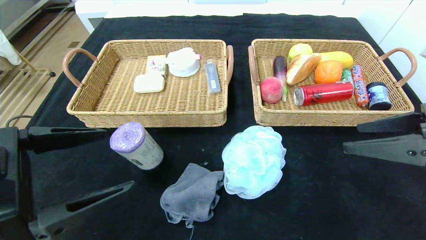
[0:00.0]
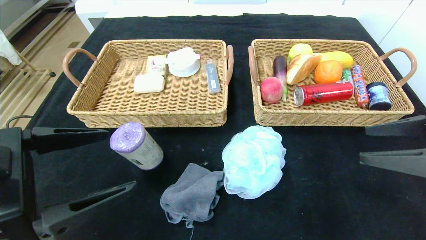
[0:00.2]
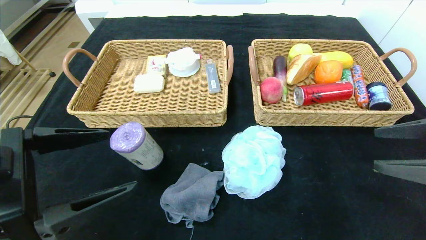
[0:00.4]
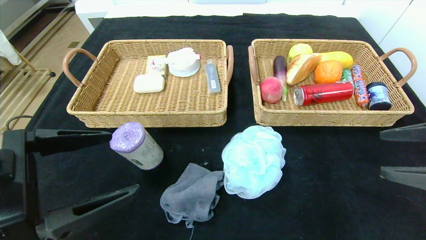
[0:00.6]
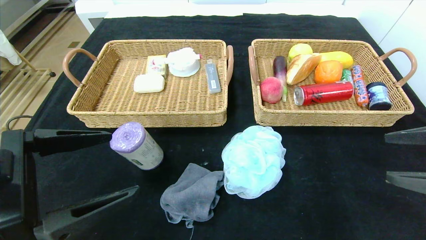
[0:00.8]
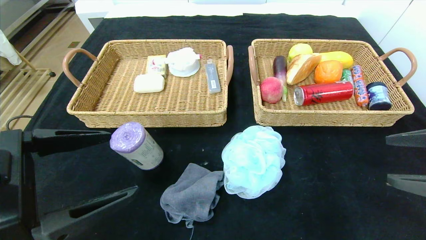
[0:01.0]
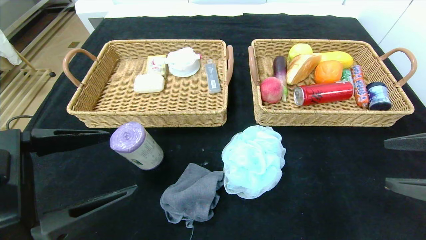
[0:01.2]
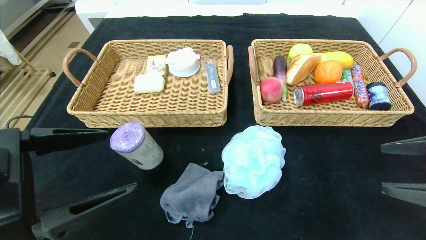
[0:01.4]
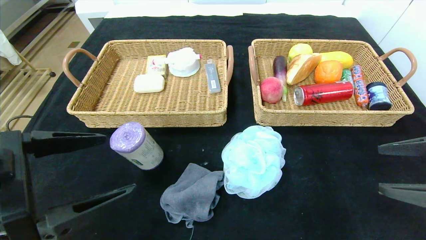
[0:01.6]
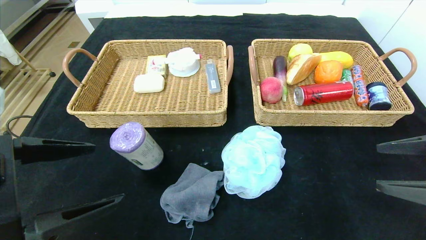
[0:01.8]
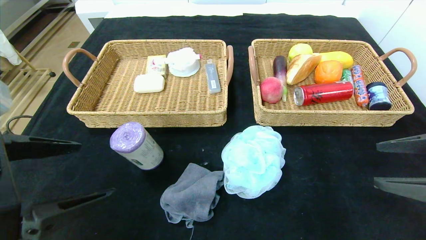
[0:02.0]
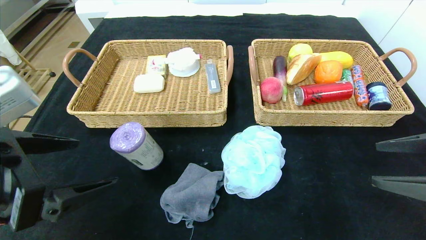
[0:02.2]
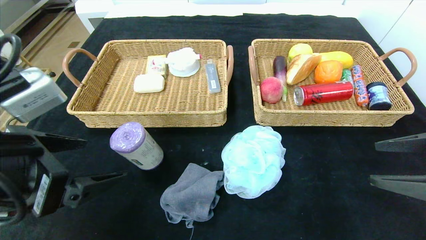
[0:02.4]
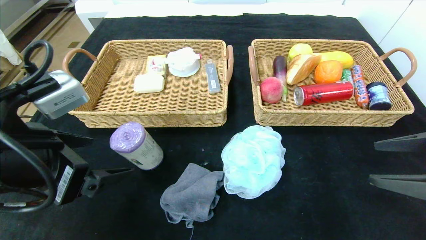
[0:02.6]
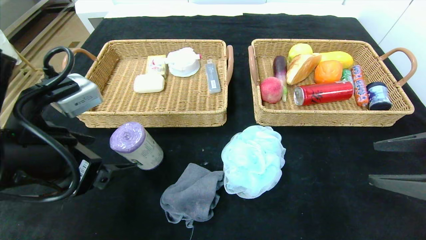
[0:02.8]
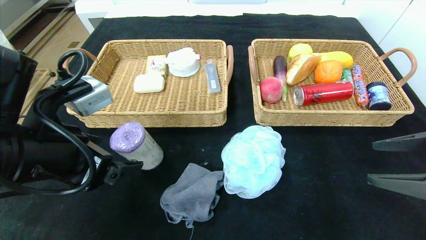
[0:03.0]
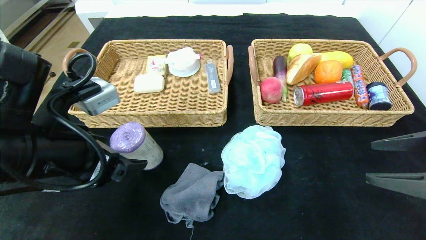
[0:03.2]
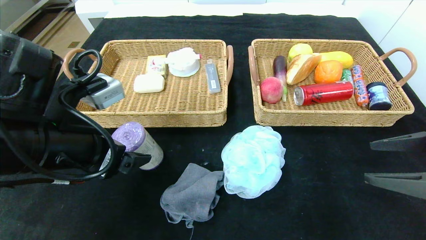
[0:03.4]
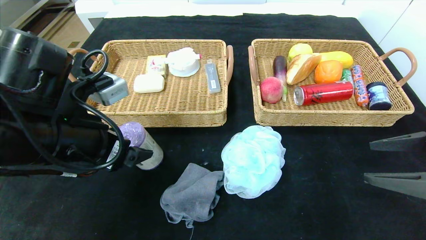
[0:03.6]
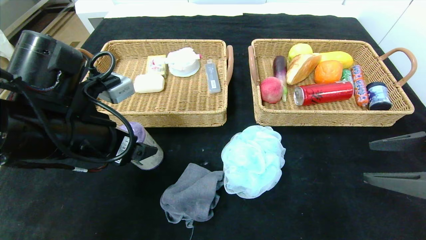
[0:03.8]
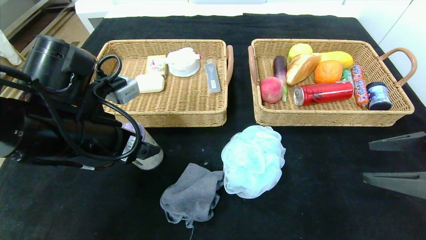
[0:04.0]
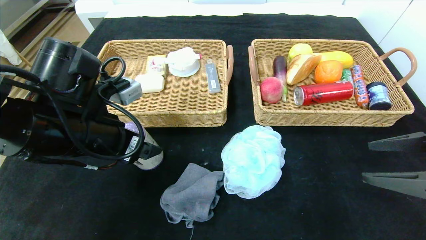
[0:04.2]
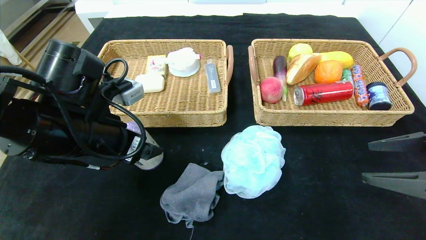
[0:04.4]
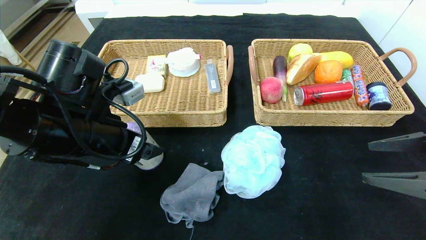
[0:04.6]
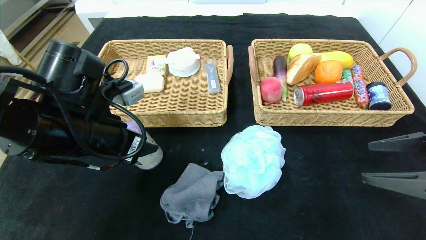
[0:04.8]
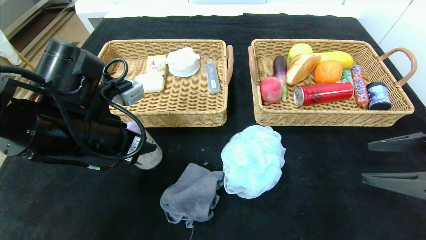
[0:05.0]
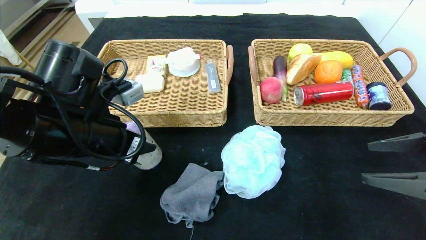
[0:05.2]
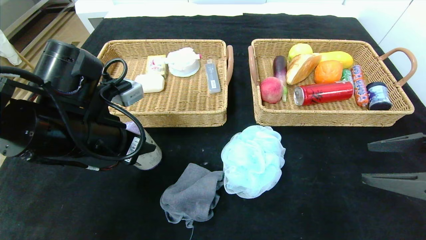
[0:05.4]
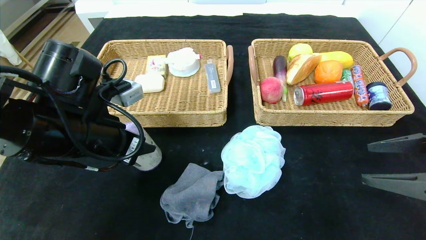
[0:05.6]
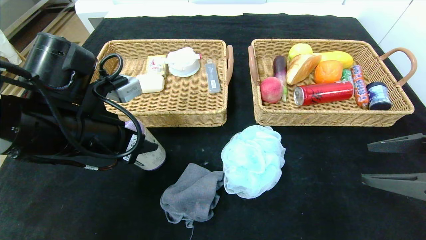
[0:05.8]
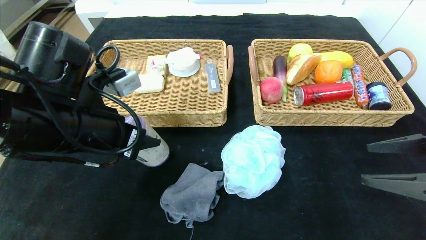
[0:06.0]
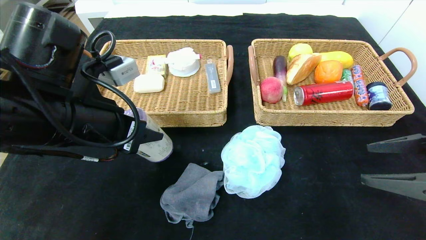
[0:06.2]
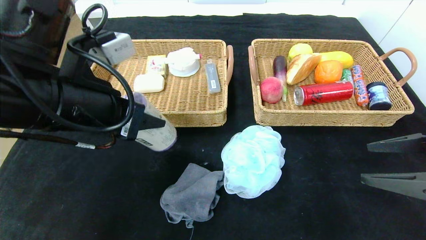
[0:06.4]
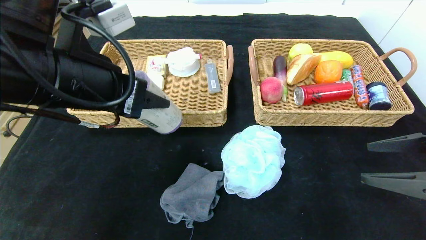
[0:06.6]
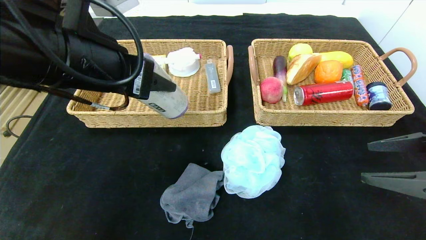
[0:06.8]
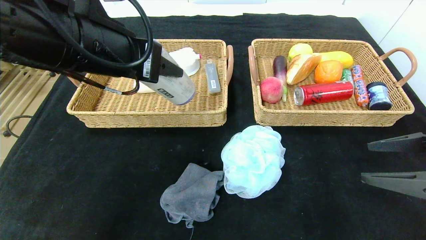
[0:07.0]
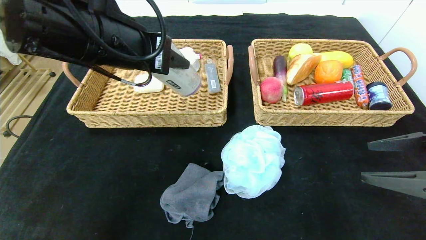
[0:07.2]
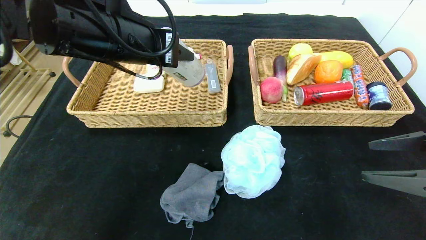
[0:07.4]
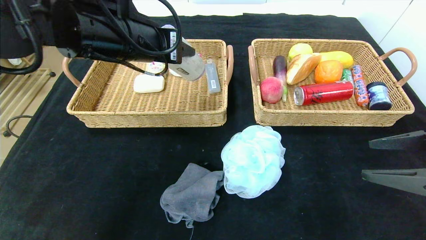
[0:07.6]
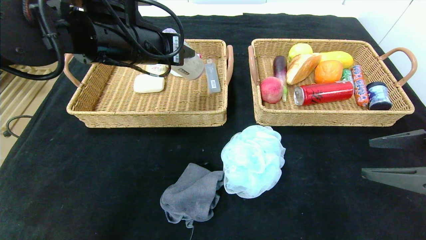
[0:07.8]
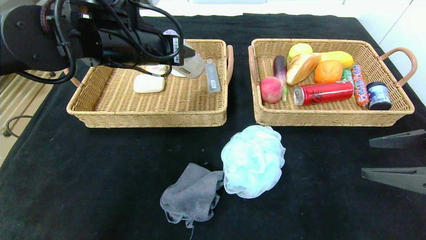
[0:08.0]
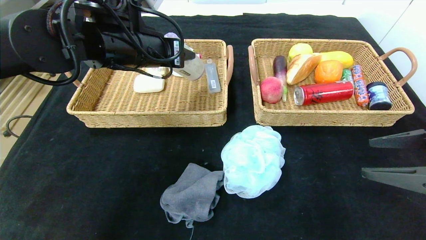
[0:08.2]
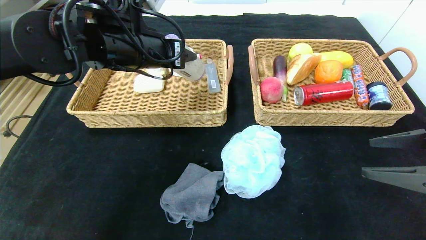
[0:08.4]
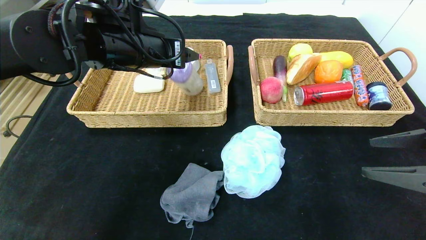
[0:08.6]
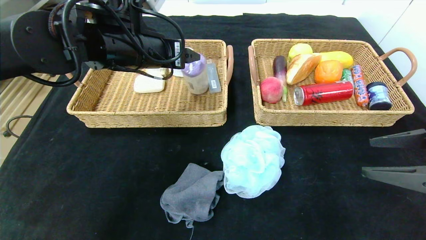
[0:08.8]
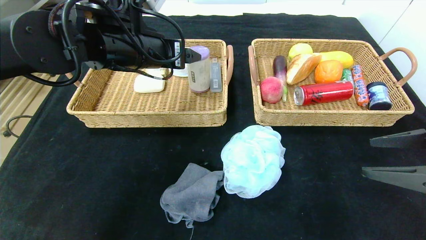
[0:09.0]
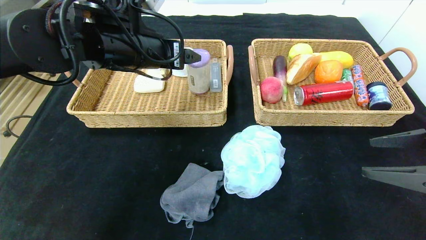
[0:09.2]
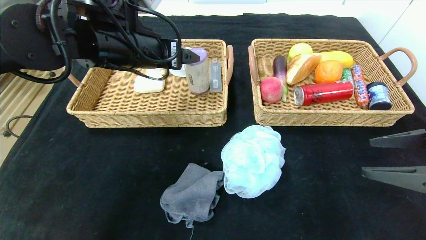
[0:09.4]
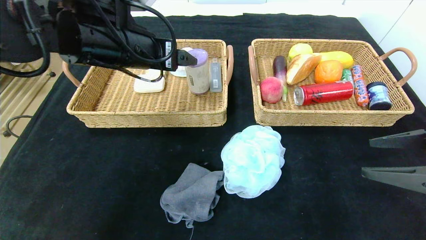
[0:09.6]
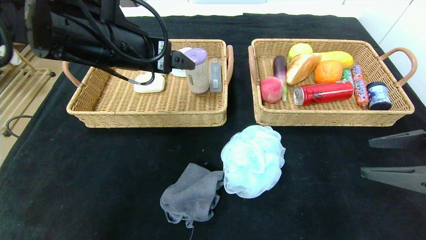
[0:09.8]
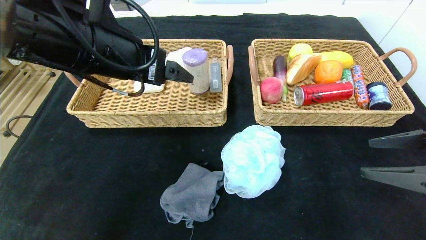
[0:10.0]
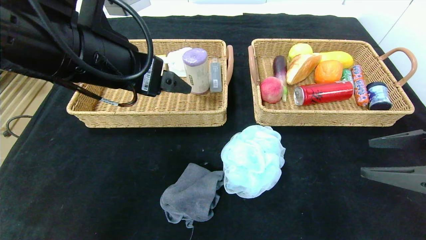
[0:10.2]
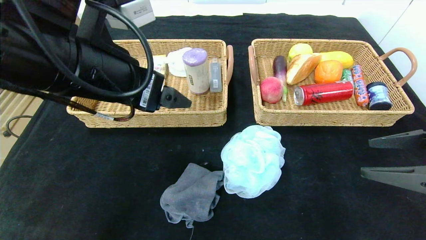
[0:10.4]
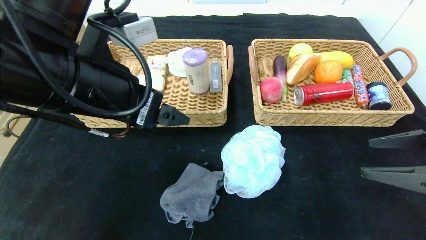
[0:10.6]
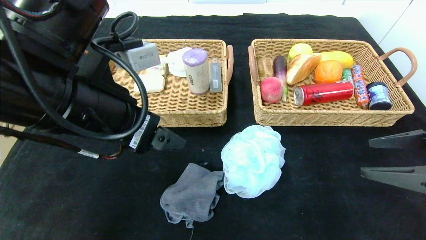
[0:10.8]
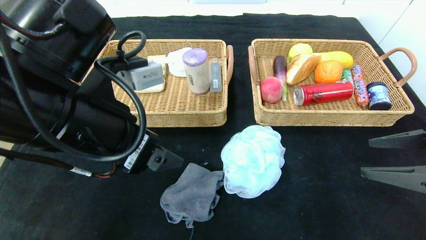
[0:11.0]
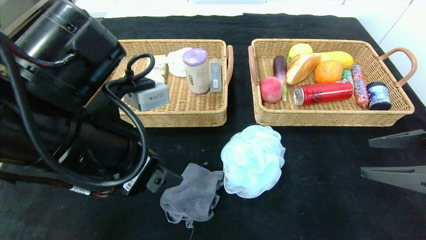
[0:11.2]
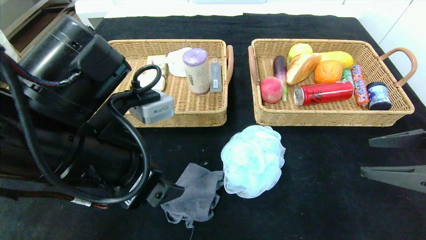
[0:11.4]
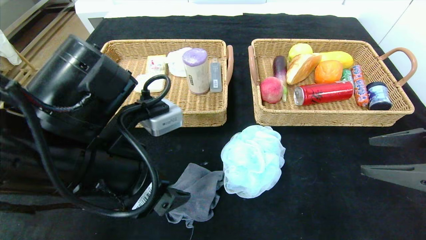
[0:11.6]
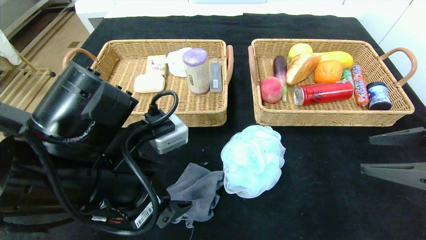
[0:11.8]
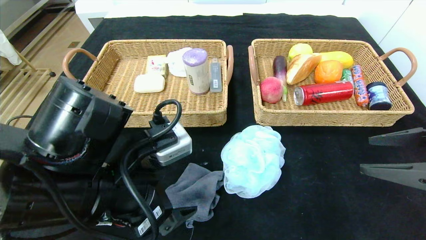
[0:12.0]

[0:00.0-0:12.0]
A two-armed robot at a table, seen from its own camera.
Step, 0:00.0 to 0:09.0: Grasp the purple garbage bag and put it in the left basket.
0:00.0 to 0:01.6: The right gripper moves roughly 5 cm.
0:01.6 to 0:03.0: The left gripper moves forward, approximately 5 cm.
0:03.0 to 0:04.4: The left gripper shifts about 5 cm forward.
0:04.4 to 0:06.0: The left gripper closes its fingers.
0:06.0 to 0:07.6: The left gripper is displaced upward and forward by about 10 cm.
0:07.6 to 0:09.0: The left gripper opens its fingers.
0:09.0 to 0:10.4: The left gripper travels backward by about 10 cm.
0:10.4 to 0:12.0: The left gripper shifts some 10 cm downward and backward.

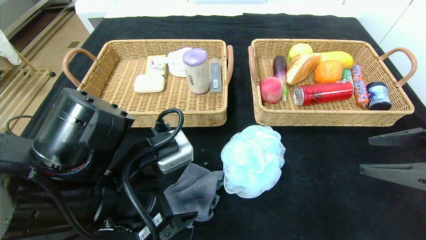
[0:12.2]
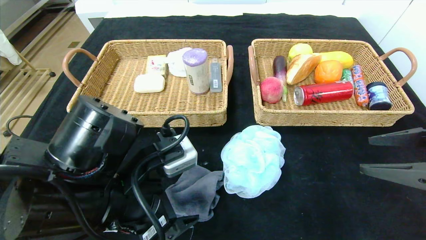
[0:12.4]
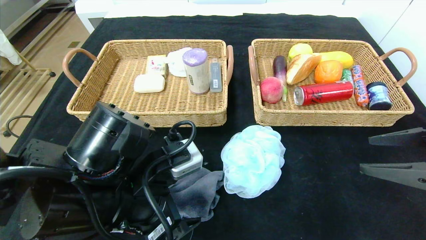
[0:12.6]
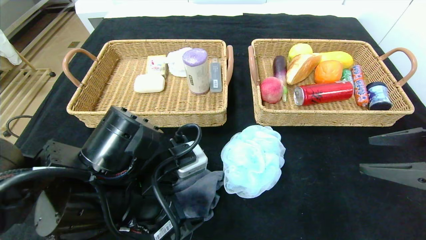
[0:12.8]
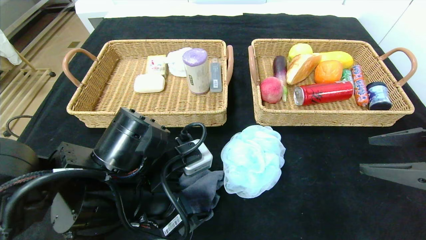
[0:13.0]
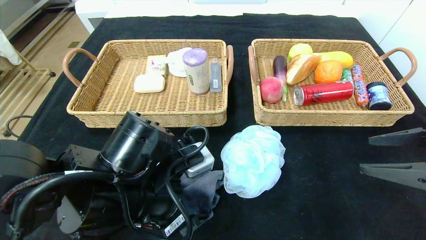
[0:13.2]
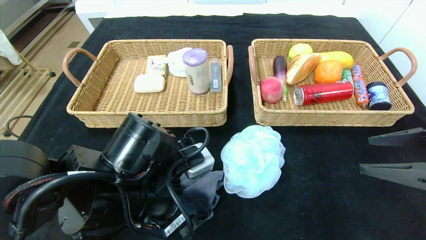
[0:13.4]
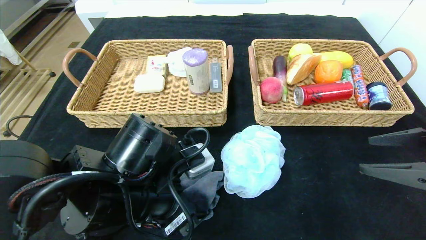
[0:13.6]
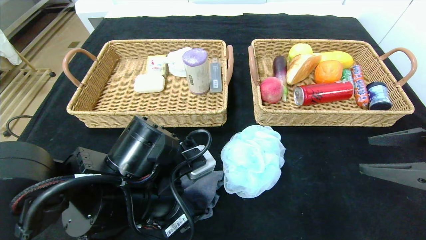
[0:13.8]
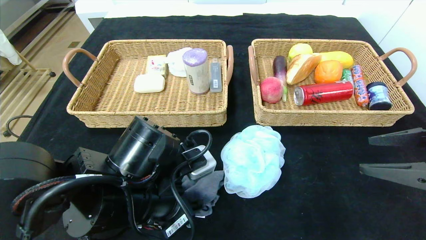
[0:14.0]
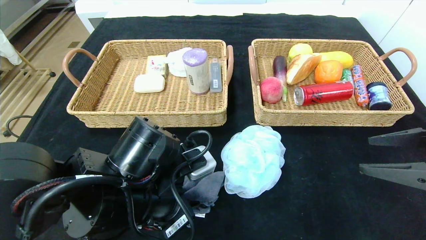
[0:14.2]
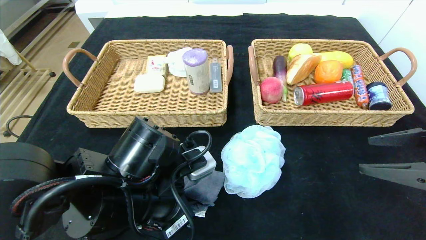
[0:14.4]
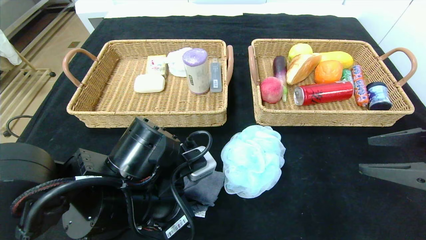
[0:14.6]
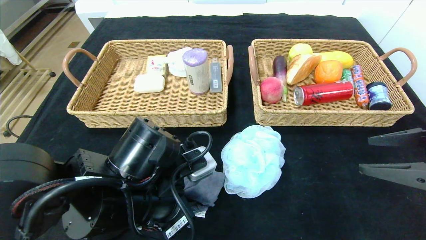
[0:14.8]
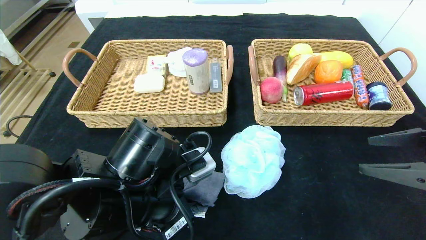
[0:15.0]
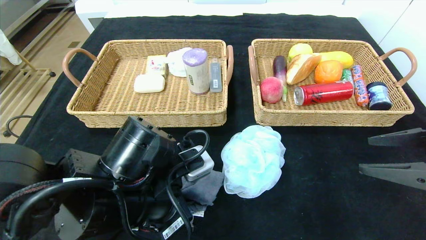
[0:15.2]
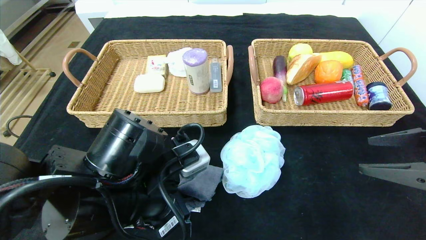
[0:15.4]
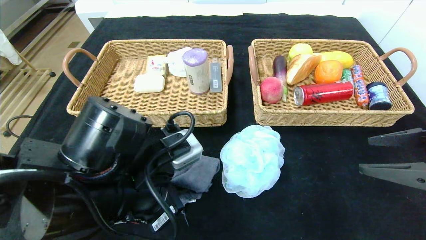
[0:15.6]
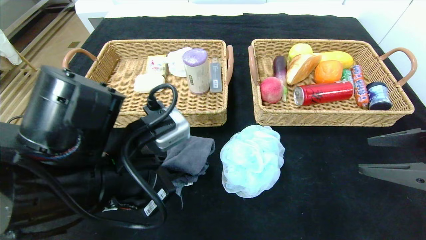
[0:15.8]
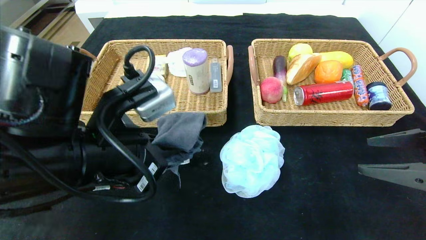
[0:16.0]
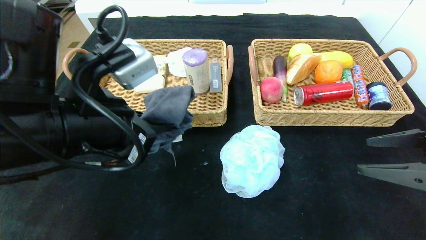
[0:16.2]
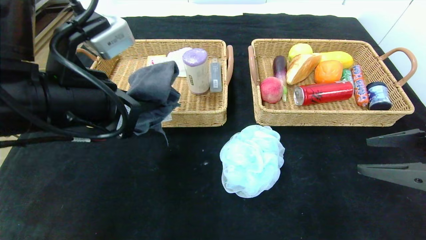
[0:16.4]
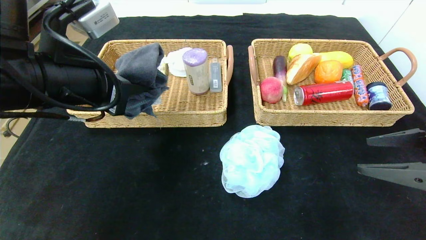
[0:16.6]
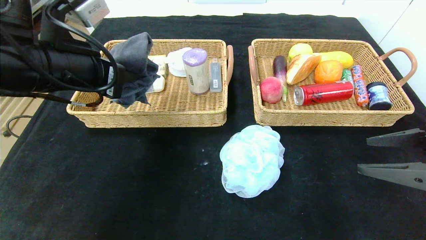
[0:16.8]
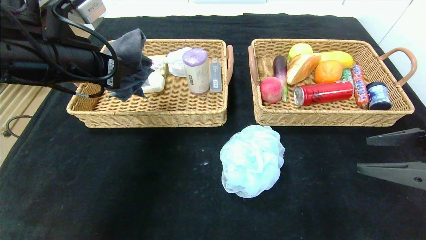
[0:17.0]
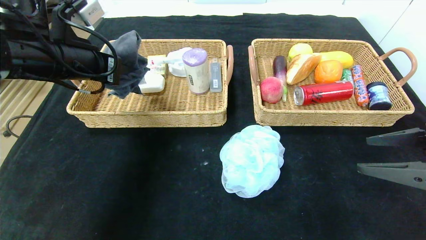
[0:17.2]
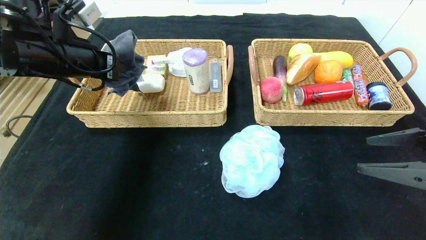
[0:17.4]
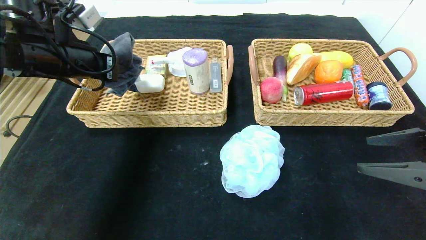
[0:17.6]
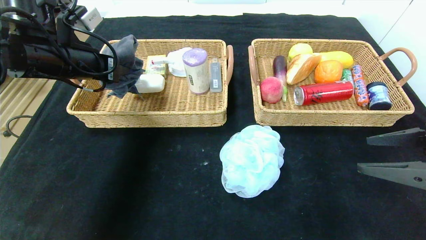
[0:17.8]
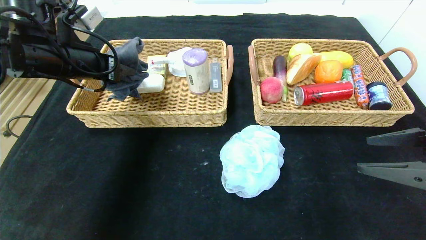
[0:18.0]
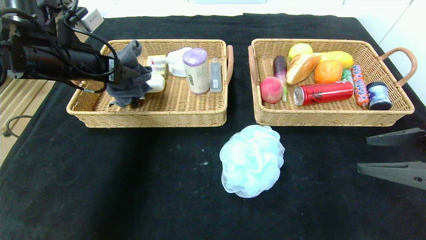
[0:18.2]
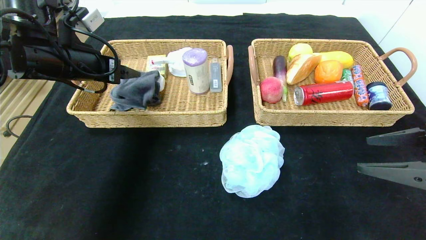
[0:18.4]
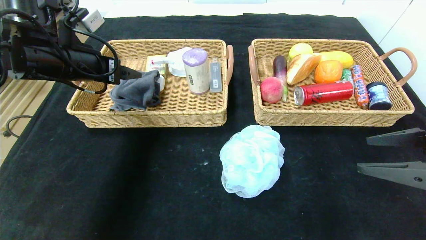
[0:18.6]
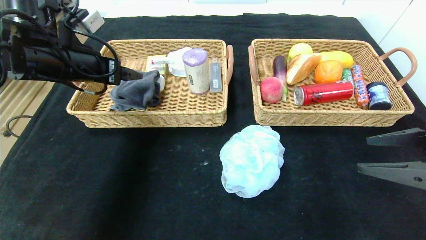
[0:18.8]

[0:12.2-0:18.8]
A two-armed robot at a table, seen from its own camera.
Step, 0:12.2 to 0:18.6: Grasp the gray towel and put it in the left basket.
0:12.2 to 0:13.8: There are only small adjustments of the grippers.
0:13.8 to 0:15.4: The left gripper closes.
0:15.4 to 0:17.2: The left gripper goes about 20 cm upward, to the left and forward.
0:17.2 to 0:18.8: The left gripper opens up.
